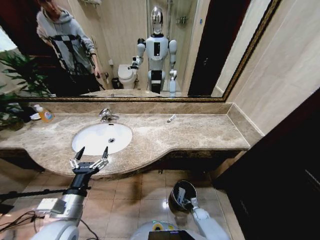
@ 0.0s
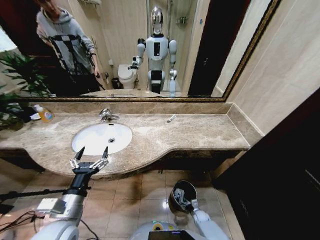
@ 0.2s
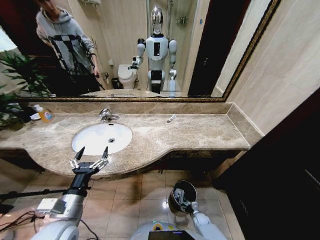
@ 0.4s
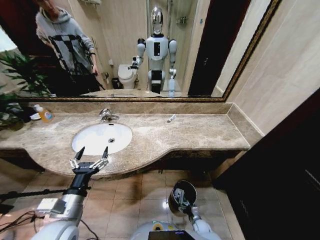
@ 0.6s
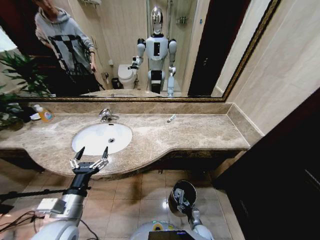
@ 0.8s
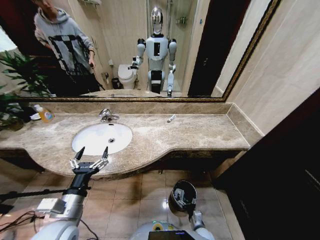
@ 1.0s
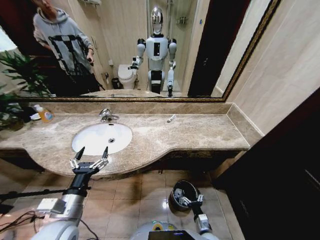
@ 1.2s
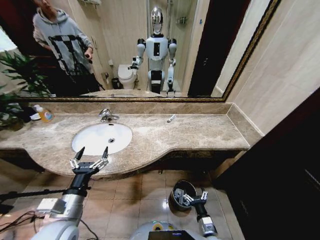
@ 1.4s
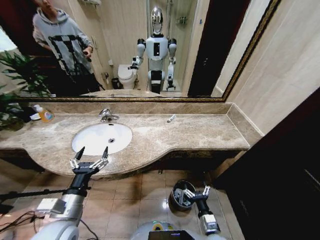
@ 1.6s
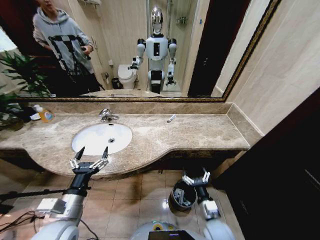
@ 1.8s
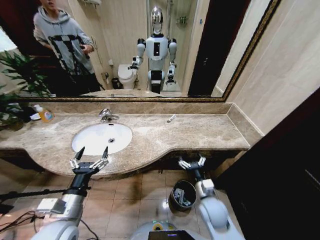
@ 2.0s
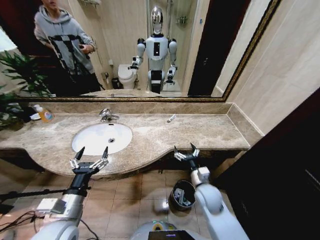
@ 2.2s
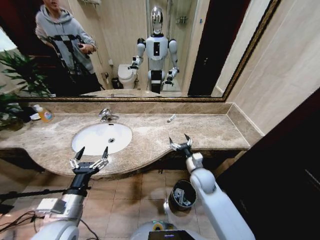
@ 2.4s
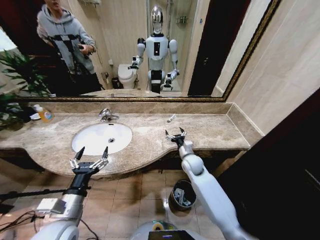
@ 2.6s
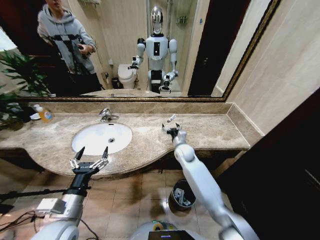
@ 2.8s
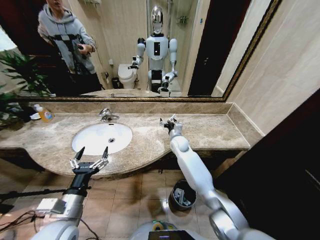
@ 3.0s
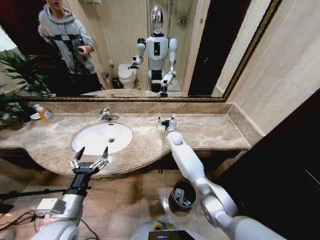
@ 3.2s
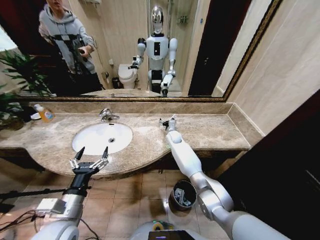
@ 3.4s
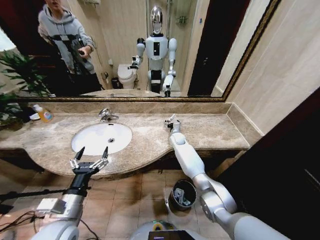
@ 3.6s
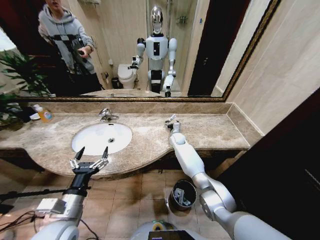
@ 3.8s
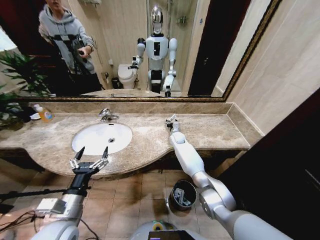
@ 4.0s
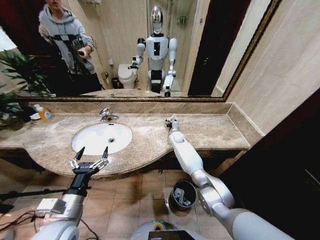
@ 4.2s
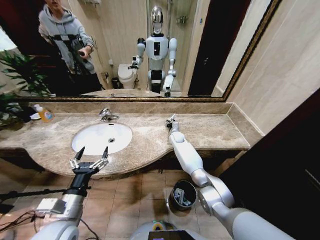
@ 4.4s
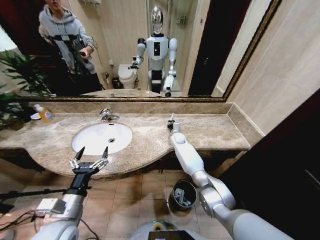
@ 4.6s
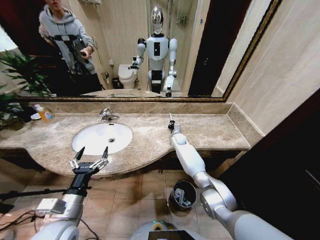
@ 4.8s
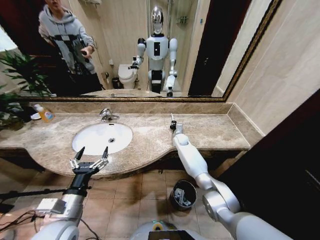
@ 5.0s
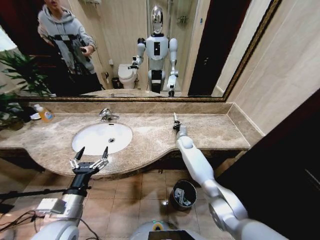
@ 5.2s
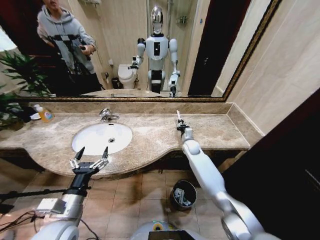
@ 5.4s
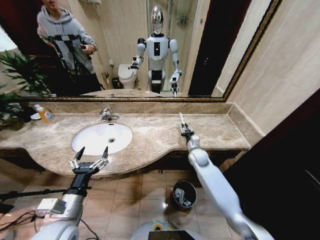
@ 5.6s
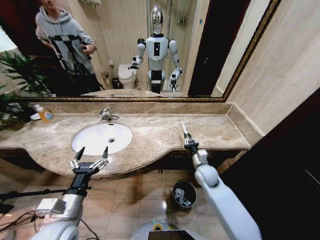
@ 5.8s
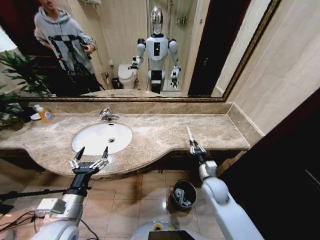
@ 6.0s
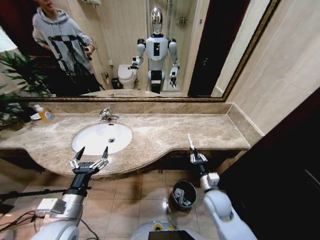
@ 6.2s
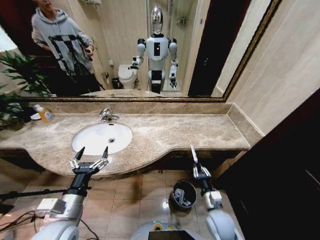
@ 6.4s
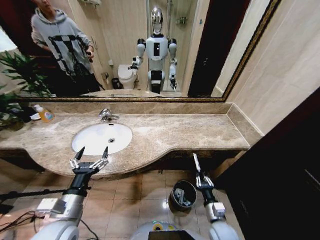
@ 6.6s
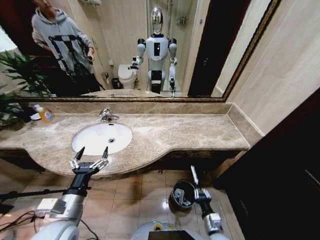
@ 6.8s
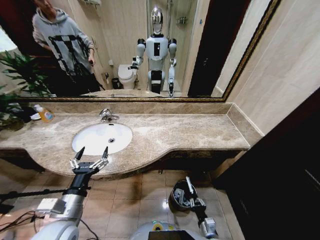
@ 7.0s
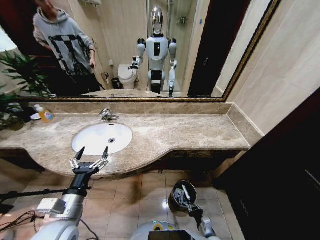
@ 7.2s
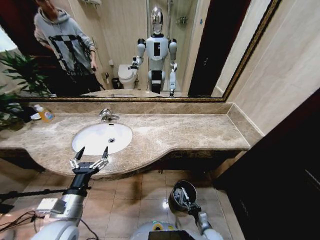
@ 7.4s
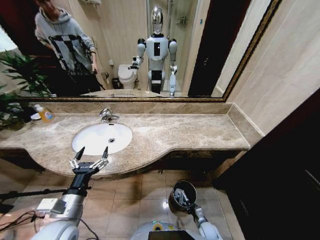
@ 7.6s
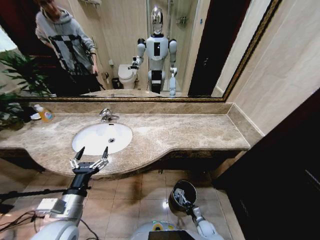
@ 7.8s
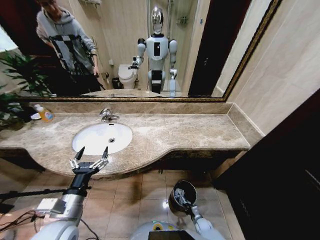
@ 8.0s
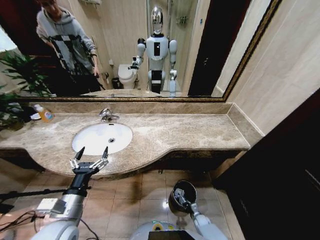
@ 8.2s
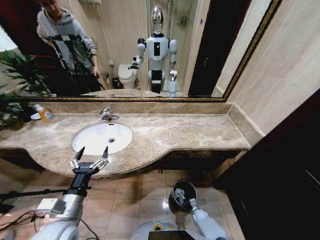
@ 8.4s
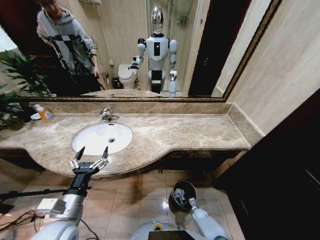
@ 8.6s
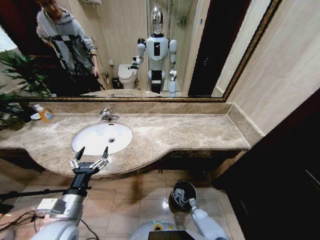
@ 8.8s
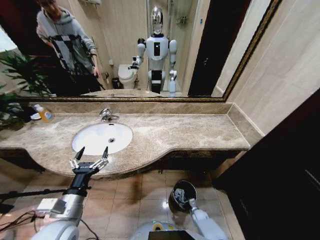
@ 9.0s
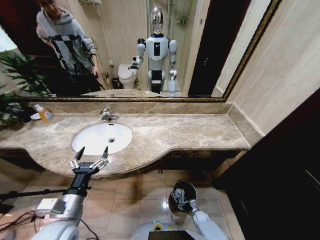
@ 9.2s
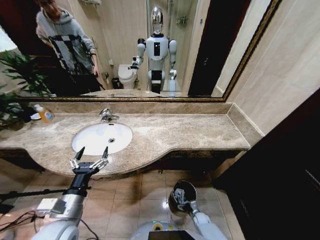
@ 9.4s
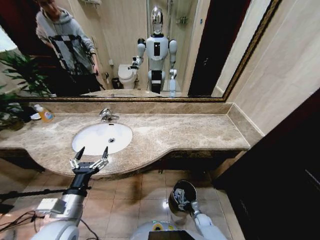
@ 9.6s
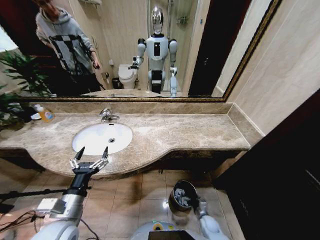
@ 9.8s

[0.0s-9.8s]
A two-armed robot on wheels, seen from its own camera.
Task of the whole recording: Pick up the trash from the sink and place it in the trash bin.
0.0s to 1.4s: The right gripper shifts about 25 cm upward and backward.
1.4s to 2.8s: The right gripper shifts about 40 cm forward and upward.
2.8s to 4.2s: The right gripper goes approximately 15 cm forward.
4.2s to 5.6s: The right gripper heads backward and to the right, covering approximately 20 cm, and closes up.
5.6s to 7.0s: The right gripper travels backward and downward by roughly 40 cm.
7.0s to 8.4s: The right gripper heads downward and forward, covering some 25 cm.
8.4s to 9.8s: The right gripper moves upward, approximately 10 cm, and opens up.

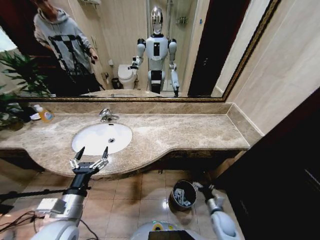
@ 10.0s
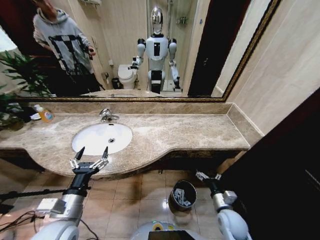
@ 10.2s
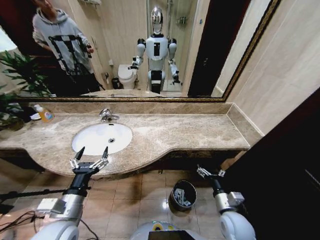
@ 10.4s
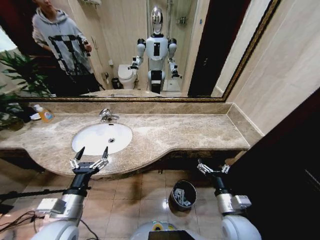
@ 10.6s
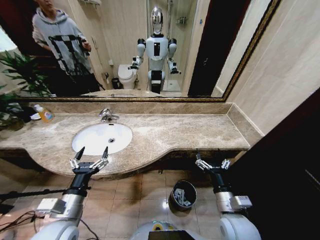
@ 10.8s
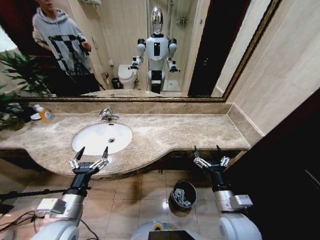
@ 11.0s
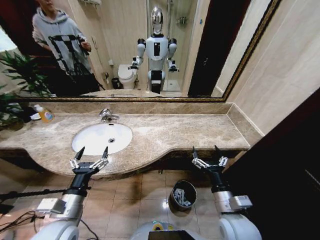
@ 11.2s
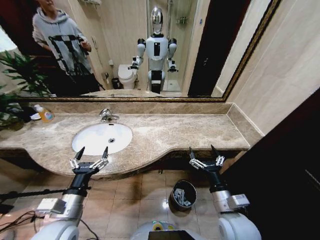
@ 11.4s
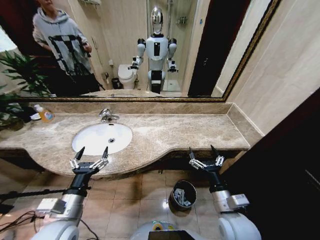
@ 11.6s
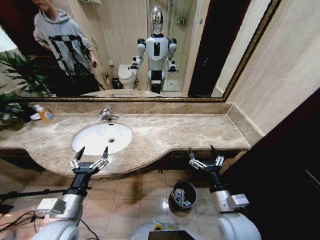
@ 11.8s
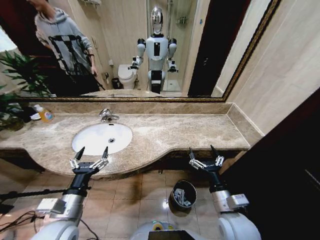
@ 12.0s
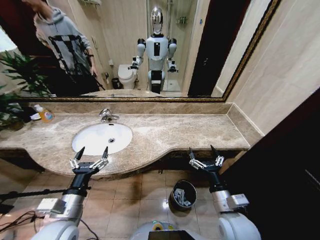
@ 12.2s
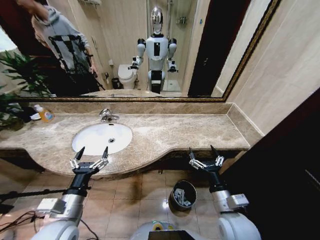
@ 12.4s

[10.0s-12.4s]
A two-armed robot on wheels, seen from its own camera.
Task of the whole recording: Pick up the trash from the sink and place it in the trash bin.
10.0s to 11.2s: The right gripper moves upward, approximately 25 cm.
11.2s to 12.4s: Both grippers stay about where they are.
